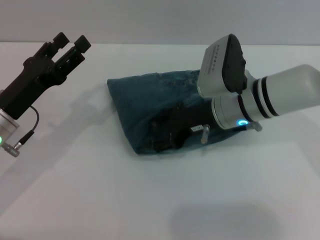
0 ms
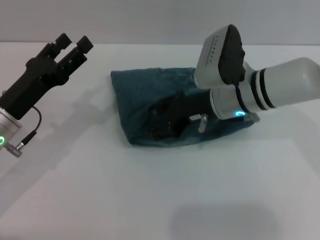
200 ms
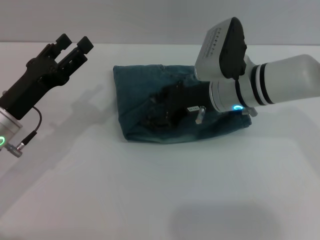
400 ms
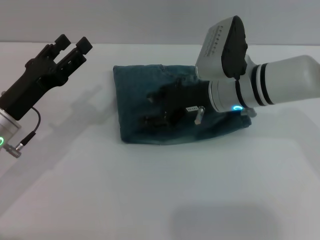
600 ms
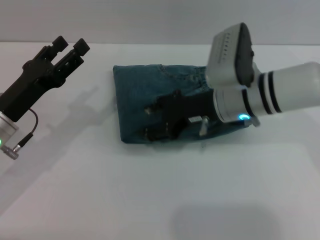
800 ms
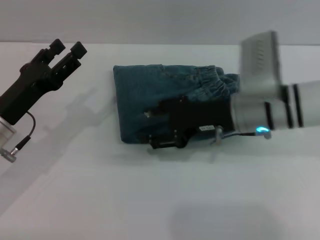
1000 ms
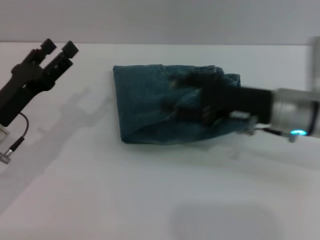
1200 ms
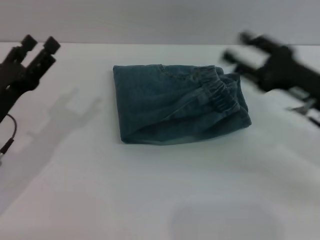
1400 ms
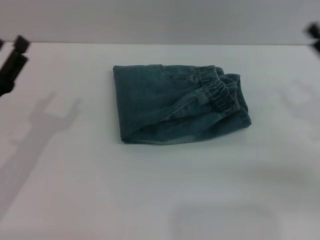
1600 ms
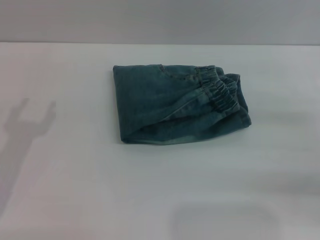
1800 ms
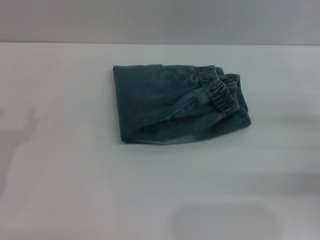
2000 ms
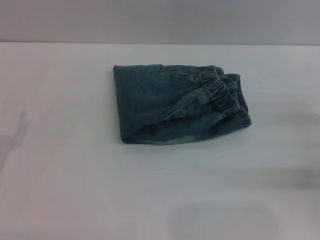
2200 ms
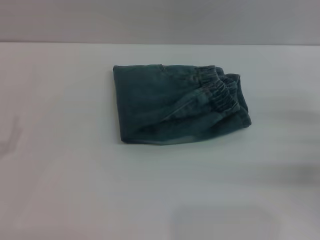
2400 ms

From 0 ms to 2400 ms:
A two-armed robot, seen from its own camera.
From 0 ms to 1200 ms: The right gripper is displaced to the right by some 5 cm.
From 1200 ms to 2400 ms: The left gripper travels backward and to the left by approximately 10 cm. Meanwhile the right gripper heads to the right and downward, covering approximately 20 cm.

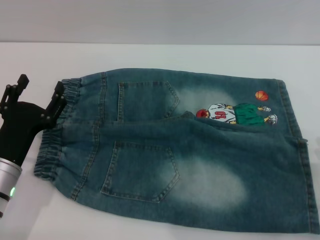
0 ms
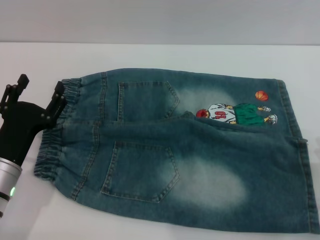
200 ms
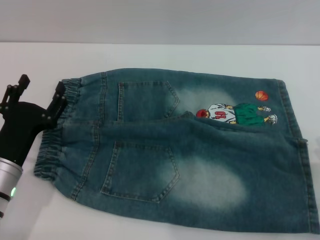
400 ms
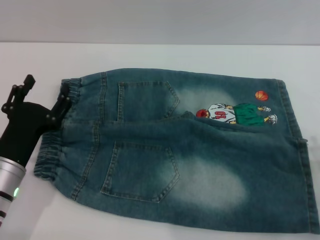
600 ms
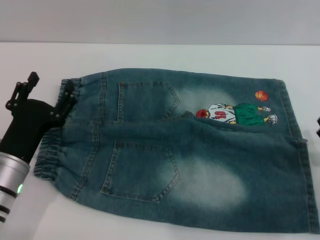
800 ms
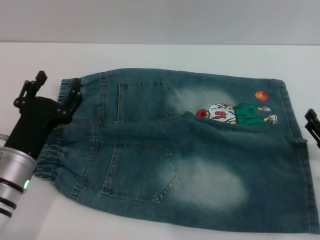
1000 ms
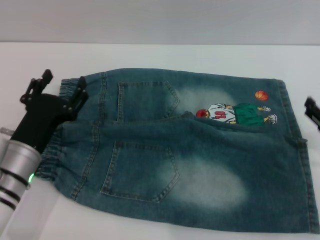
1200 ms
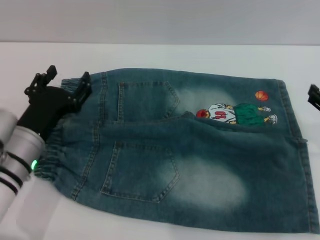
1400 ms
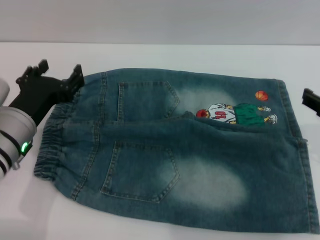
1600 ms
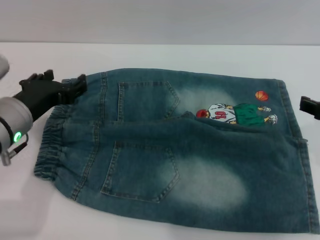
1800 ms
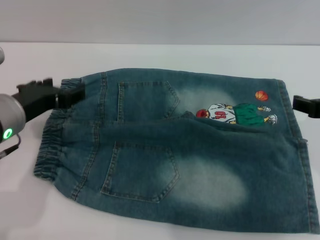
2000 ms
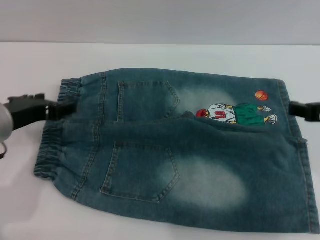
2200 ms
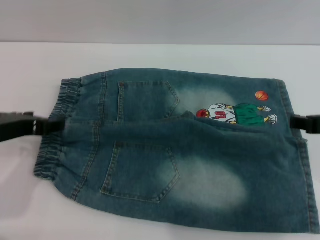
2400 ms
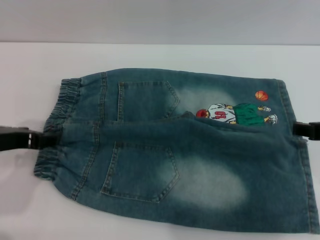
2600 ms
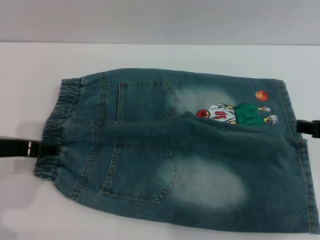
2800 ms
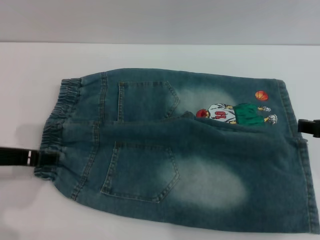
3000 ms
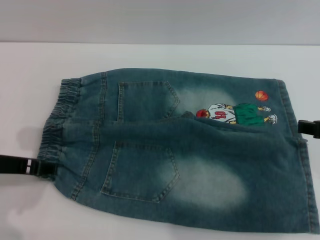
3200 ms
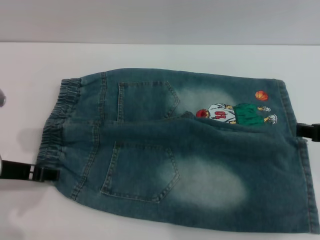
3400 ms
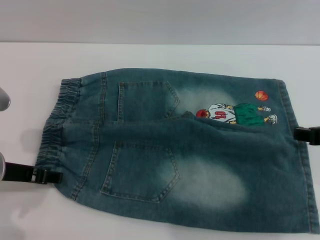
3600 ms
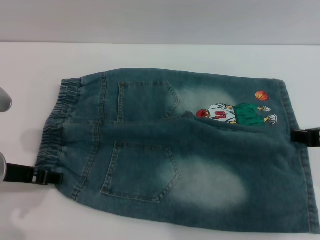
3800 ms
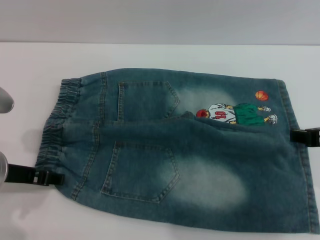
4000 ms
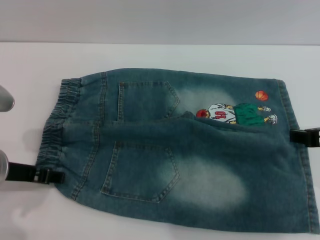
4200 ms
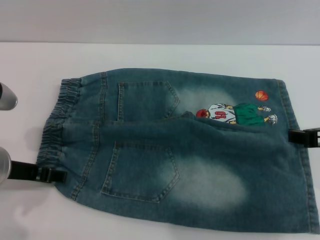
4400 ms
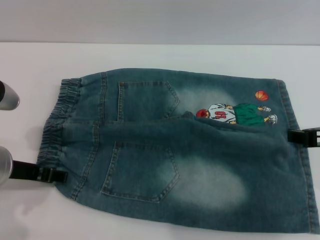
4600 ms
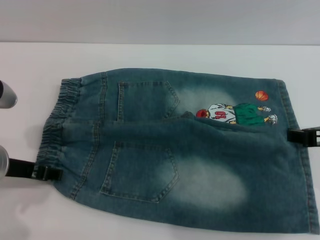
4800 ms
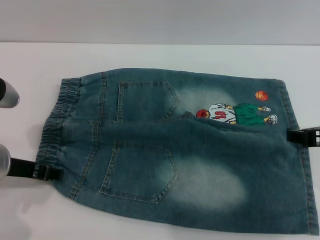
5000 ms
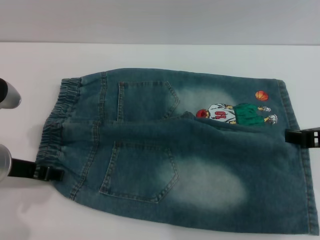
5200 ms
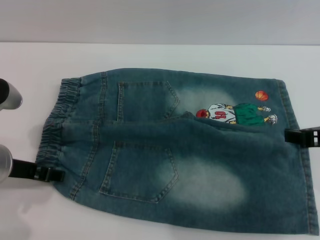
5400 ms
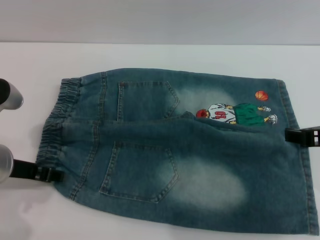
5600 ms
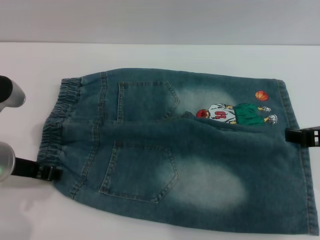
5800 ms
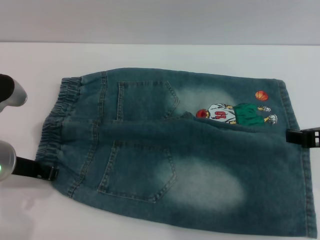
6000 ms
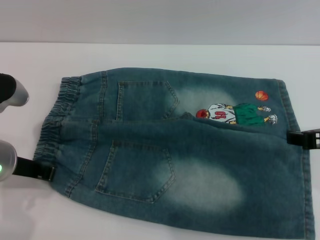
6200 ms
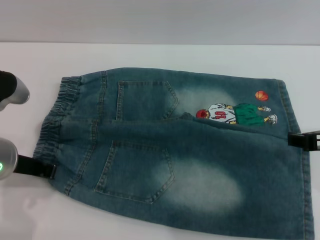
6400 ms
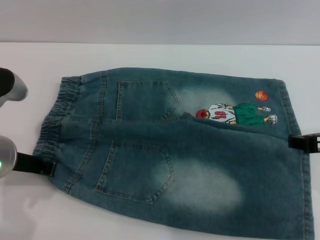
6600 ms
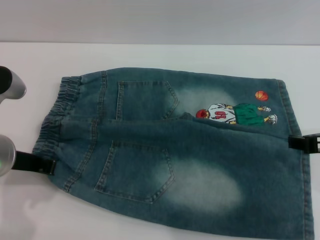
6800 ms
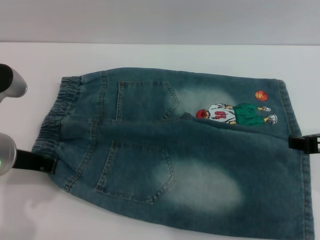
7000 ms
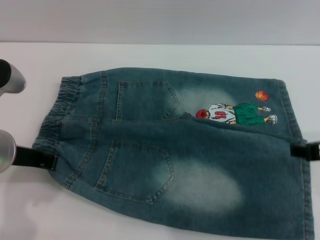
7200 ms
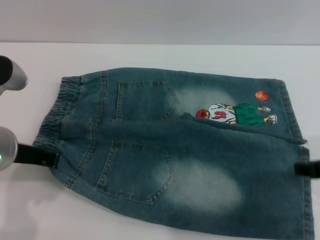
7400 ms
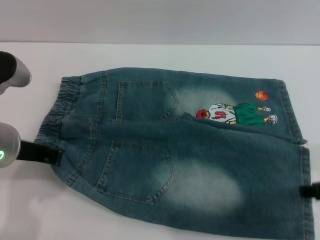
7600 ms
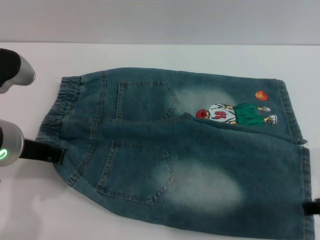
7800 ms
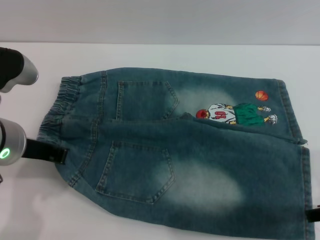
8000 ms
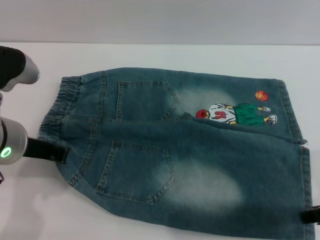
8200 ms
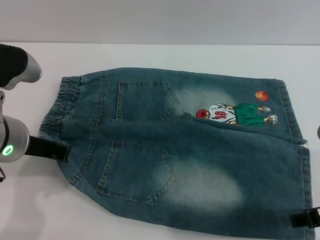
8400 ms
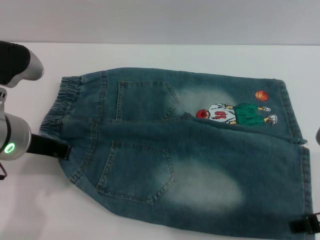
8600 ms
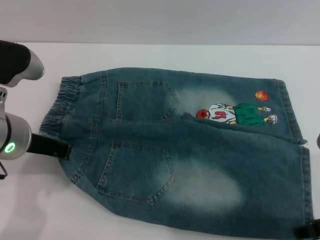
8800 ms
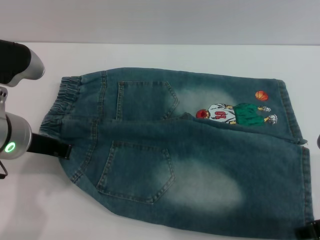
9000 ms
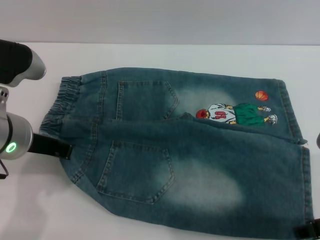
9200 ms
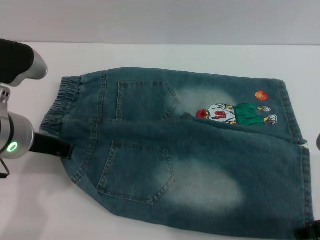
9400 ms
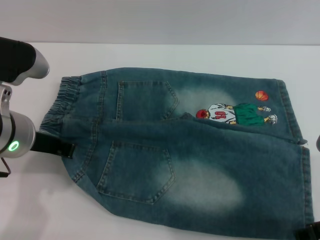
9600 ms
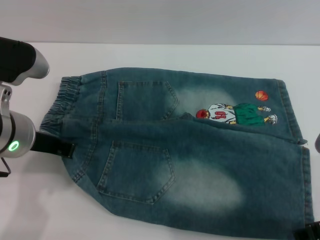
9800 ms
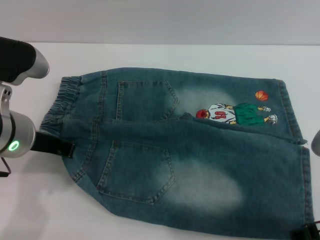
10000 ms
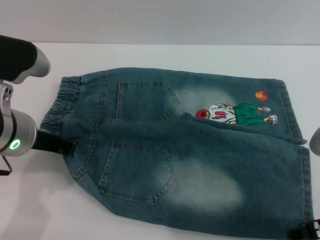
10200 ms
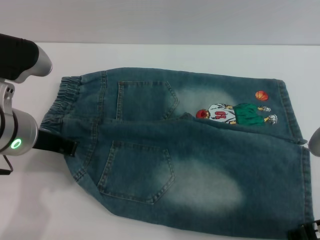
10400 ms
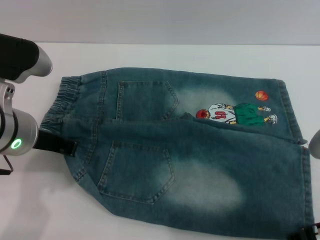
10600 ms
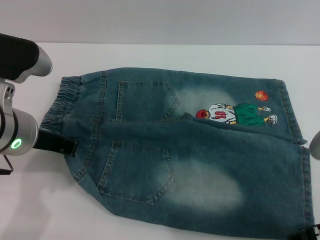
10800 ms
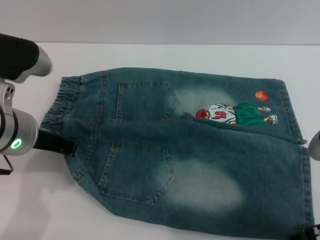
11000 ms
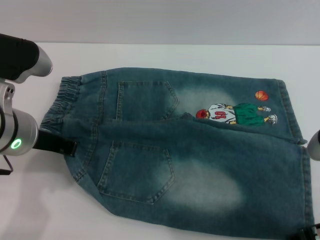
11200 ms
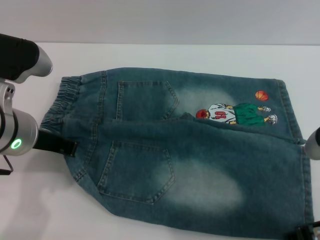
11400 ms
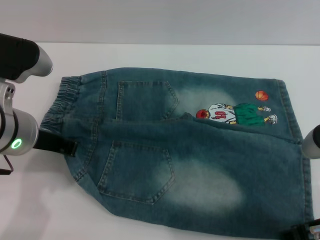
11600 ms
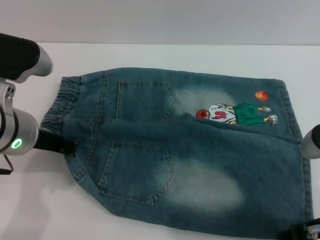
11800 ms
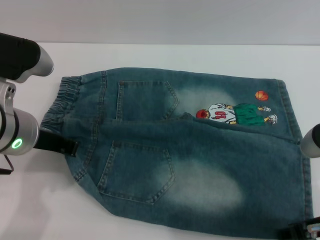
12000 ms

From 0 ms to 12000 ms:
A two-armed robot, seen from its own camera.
From 0 ms to 1600 ms: The right gripper goes roughly 15 cm upward and forward. Meanwhile the left gripper is displaced upward by about 5 cm.
From 1600 ms to 3000 ms: The right gripper shifts by some 5 cm. The left gripper heads upward, covering about 5 cm.
From 3000 ms to 4400 ms: The grippers move only a little.
From 4400 ms to 6000 ms: Both grippers stay about where they are.
From 6000 ms to 7600 ms: The left gripper closes its fingers.
From 7600 ms to 9000 ms: The grippers move only a little.
From 9000 ms to 10400 ms: Neither gripper changes place.
From 10400 ms to 12000 ms: Both grippers stay about where they are.

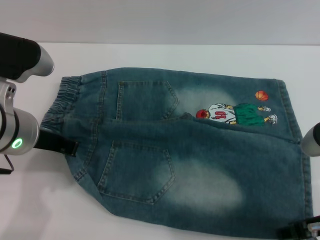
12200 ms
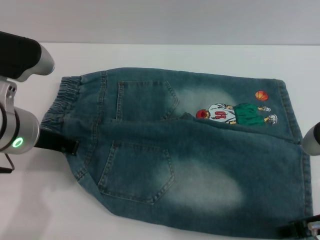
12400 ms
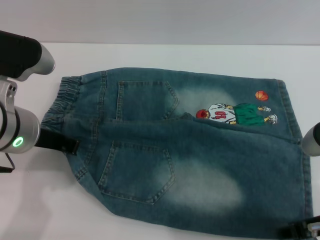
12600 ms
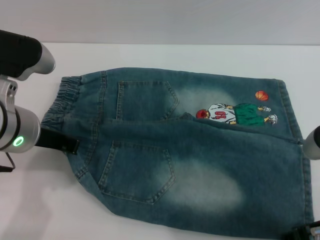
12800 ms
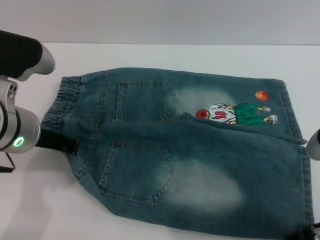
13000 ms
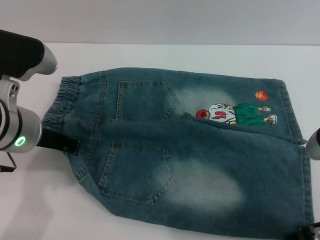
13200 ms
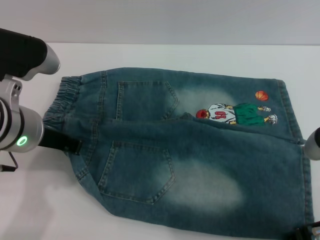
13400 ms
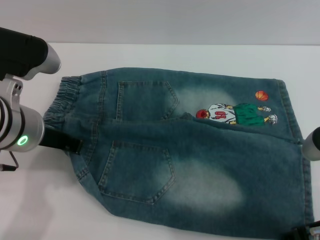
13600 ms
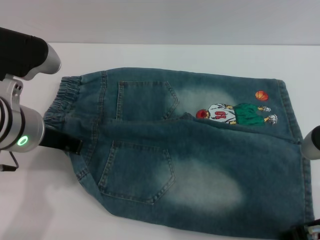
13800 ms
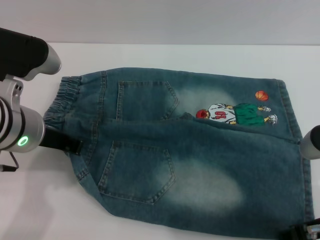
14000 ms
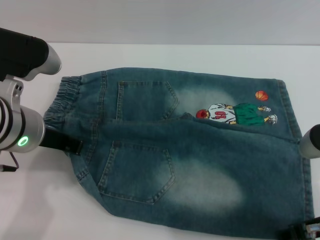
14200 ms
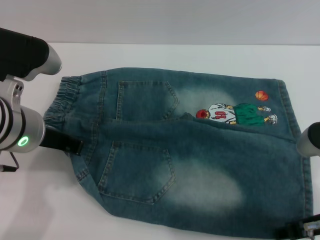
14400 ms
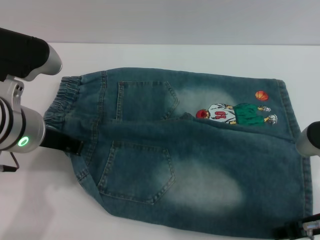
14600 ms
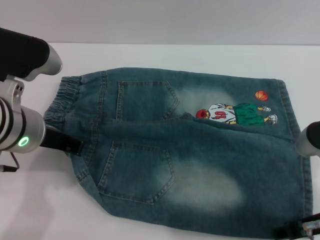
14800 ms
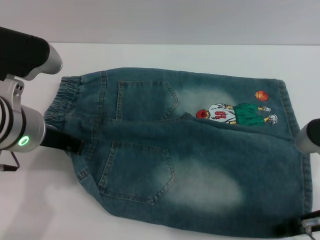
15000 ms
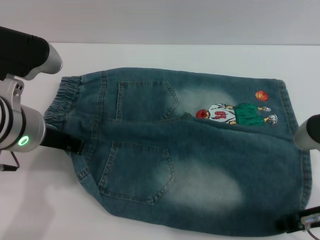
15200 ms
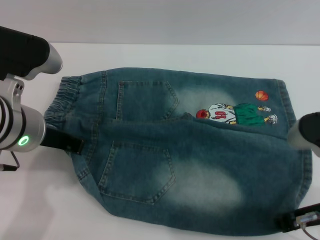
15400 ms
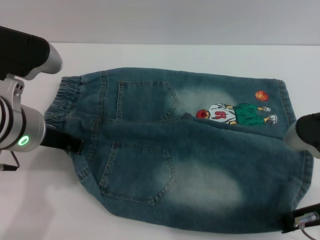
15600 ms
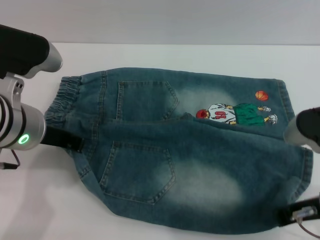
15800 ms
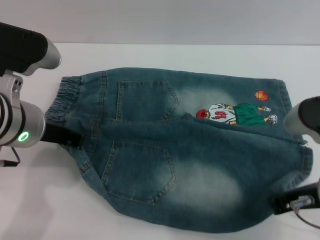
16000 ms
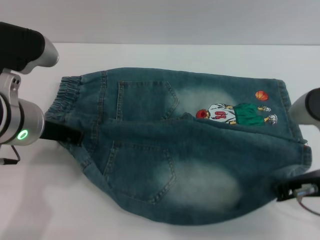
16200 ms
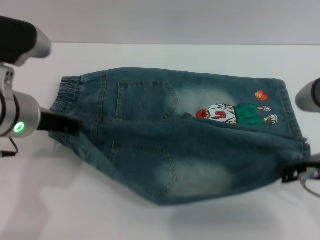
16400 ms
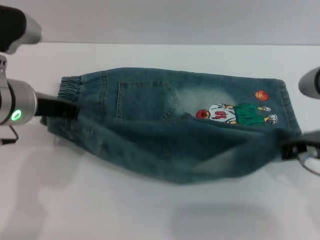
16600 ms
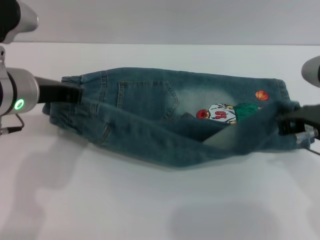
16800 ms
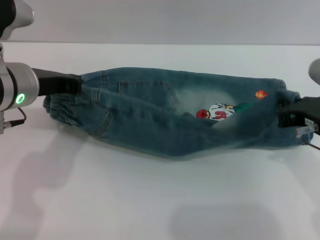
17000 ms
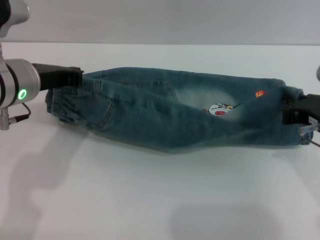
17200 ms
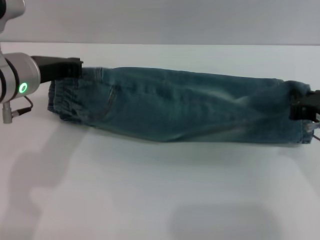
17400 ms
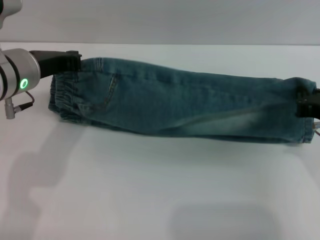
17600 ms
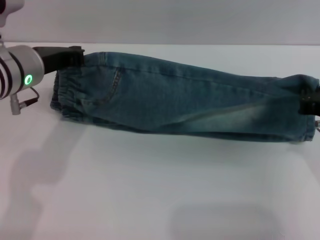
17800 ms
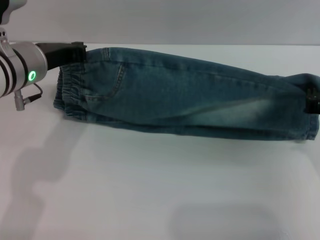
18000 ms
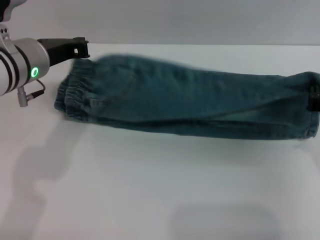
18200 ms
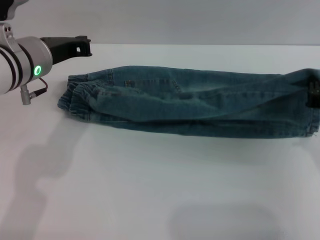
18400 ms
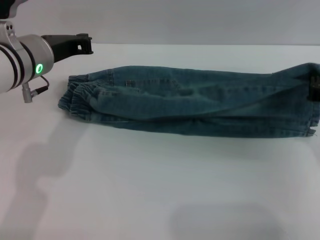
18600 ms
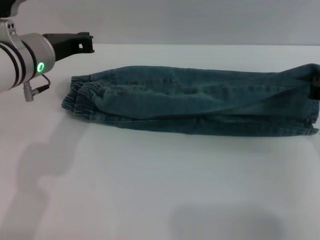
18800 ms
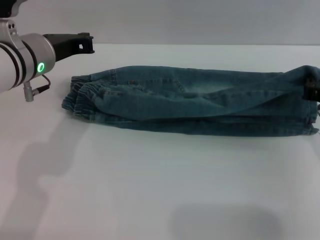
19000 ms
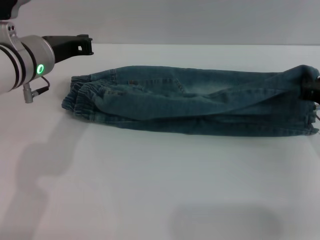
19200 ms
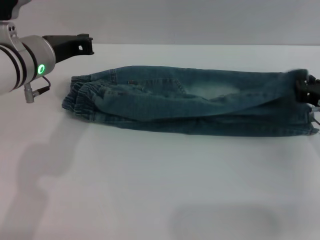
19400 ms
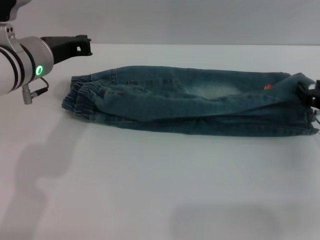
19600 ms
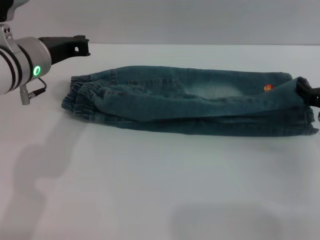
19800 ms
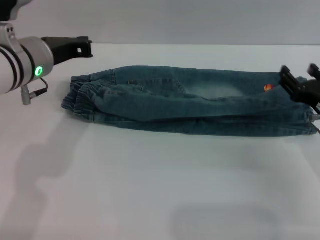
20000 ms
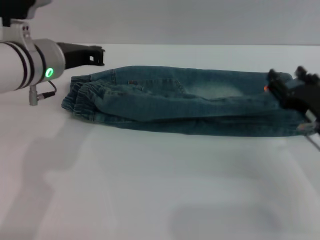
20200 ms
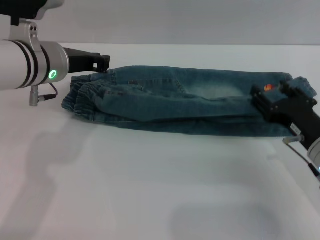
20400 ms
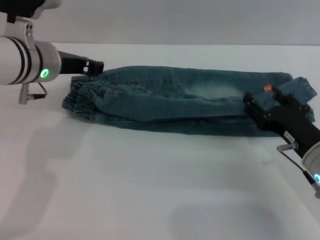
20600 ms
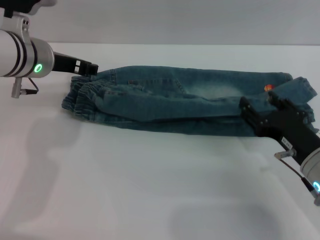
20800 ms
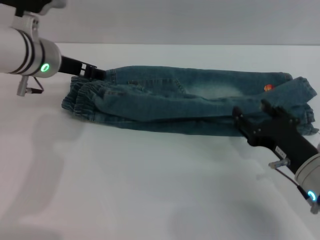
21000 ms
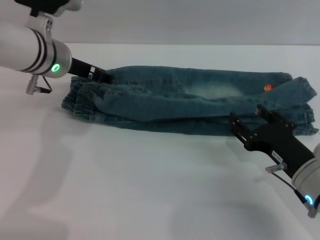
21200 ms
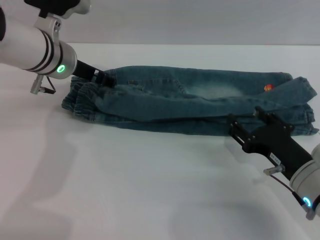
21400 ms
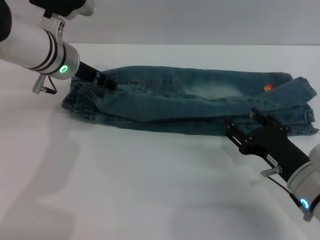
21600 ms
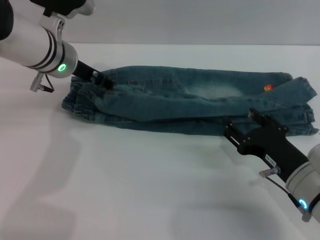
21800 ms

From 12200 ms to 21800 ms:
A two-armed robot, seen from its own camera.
Step, from 12200 ms to 18600 ms: Fold the bottom of the pants upward with both grippers.
From 12200 ms to 13800 ms: The two grippers keep their place.
From 13800 ms to 15400 ms: The right gripper closes.
From 15400 ms to 17000 ms: The right gripper closes up.
From 17000 ms to 18600 ms: The right gripper goes some 5 cm to the right; the left gripper shifts by roughly 5 cm.
From 18600 ms to 20200 ms: The right gripper opens its fingers.
From 20200 ms to 21800 ms: The left gripper heads forward, covering approximately 5 cm, and opens its fingers, while the right gripper moves roughly 5 cm.
